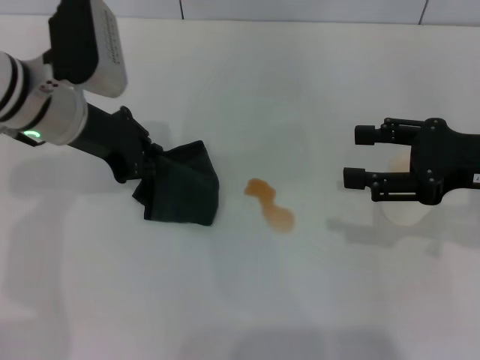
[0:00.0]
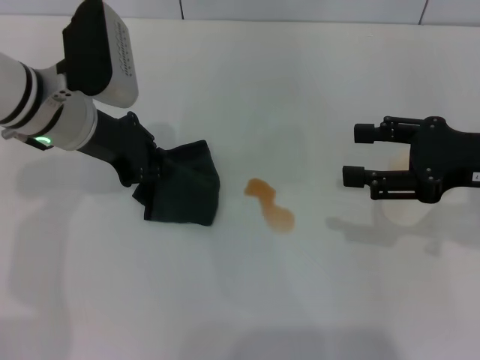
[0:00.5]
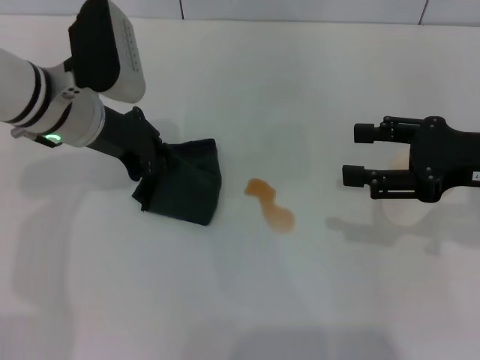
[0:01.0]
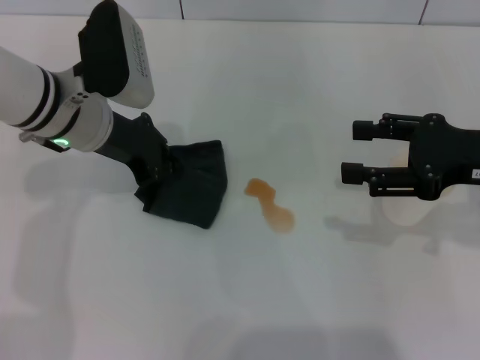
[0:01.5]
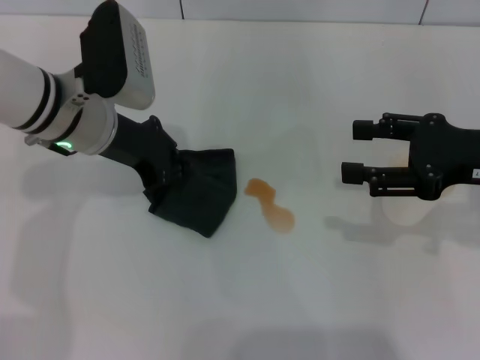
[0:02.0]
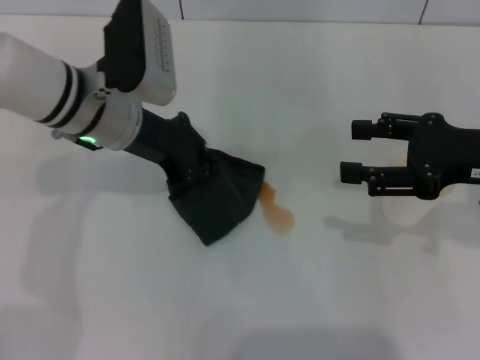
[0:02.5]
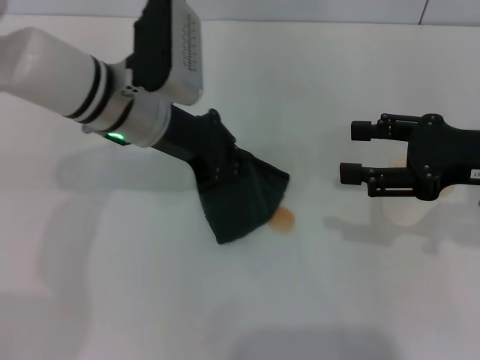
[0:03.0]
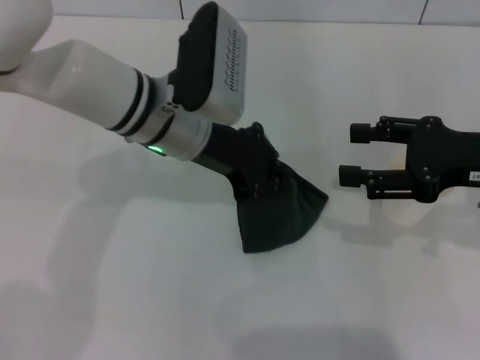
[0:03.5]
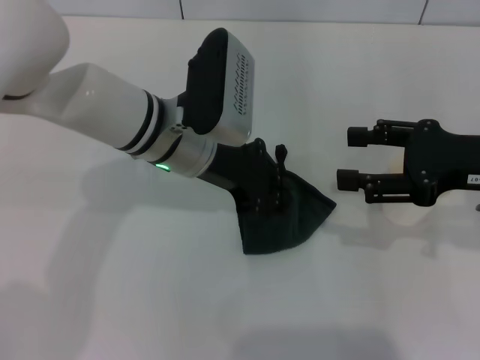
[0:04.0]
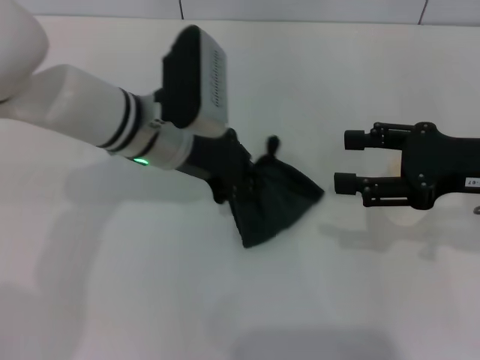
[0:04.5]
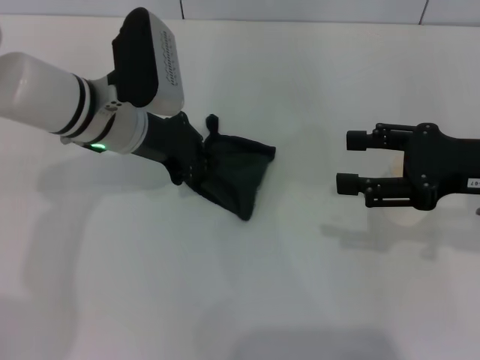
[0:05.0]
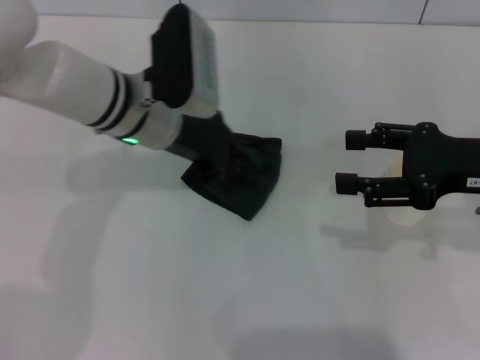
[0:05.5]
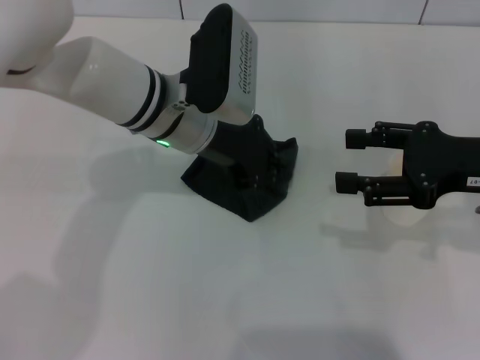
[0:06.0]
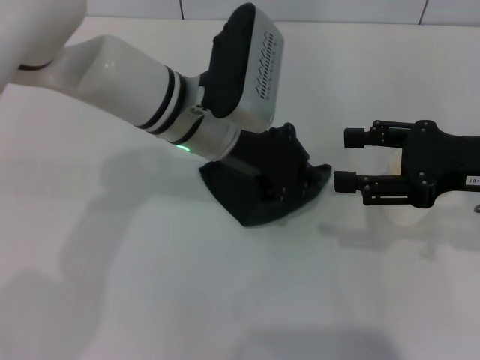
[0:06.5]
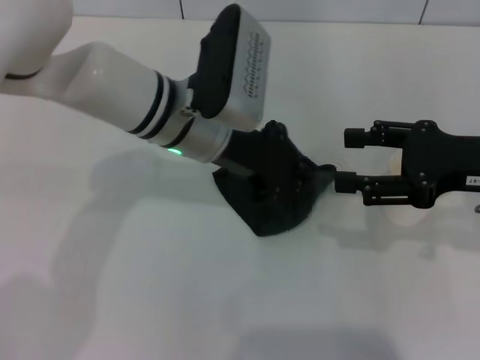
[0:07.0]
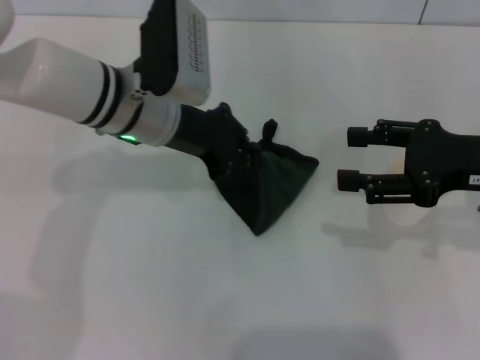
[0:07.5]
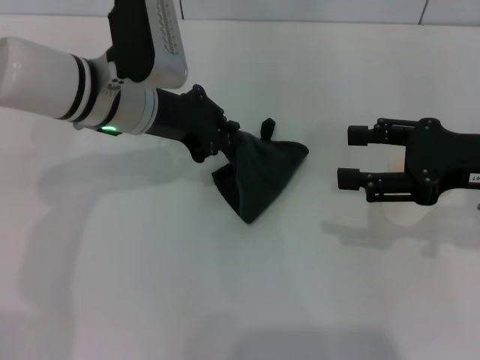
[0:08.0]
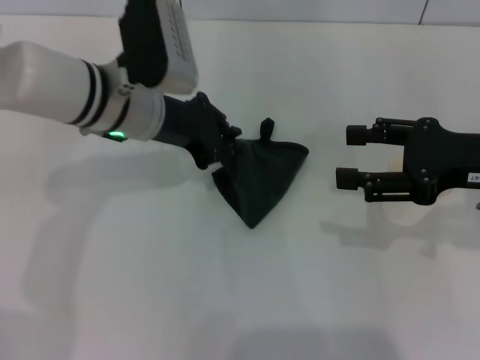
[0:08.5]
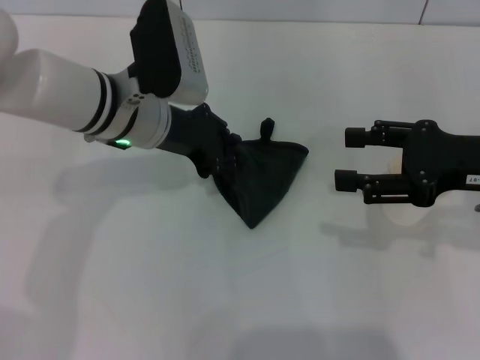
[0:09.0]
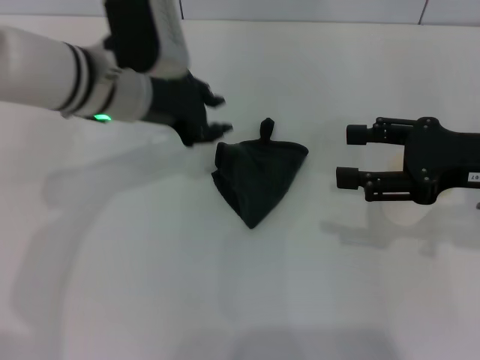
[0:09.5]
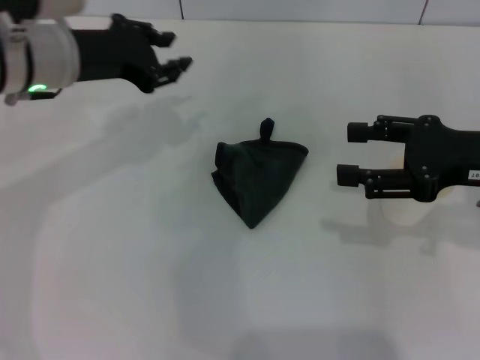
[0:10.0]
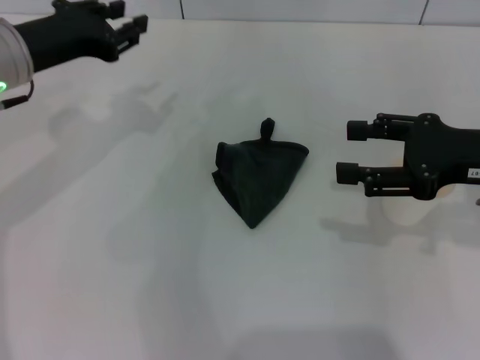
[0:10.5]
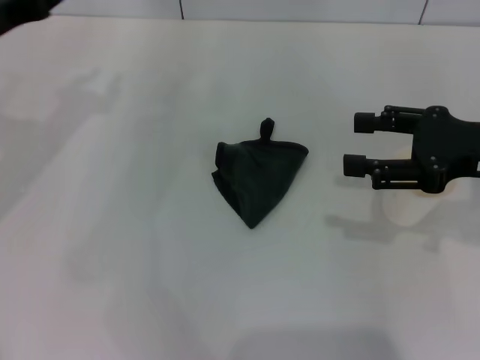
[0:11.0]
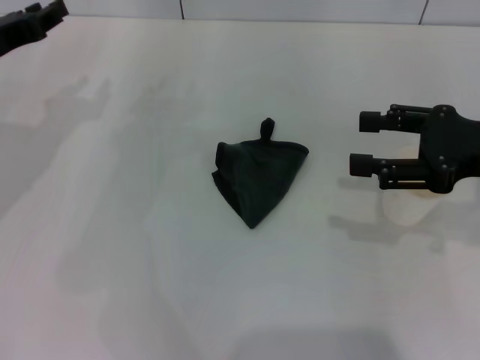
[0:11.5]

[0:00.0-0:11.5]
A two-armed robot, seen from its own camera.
Step, 0:00.0 to 0:05.0: Wipe the stains off the table with the left gripper.
Step, 0:05.5 to 0:09.5: Place the rag on the table with the left gripper.
0:00.0 to 0:02.0: The grippers make only small movements.
0:02.0 to 0:04.0: The left gripper heads to the right, covering approximately 10 cm.
0:06.0 to 0:07.5: The grippers move only a little.
0:07.5 to 0:09.5: The left gripper opens up.
0:09.5 to 0:11.5: The left gripper goes about 15 cm to the left.
